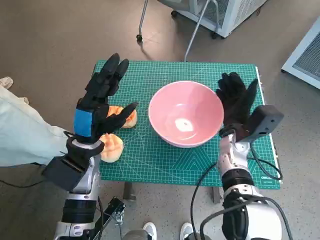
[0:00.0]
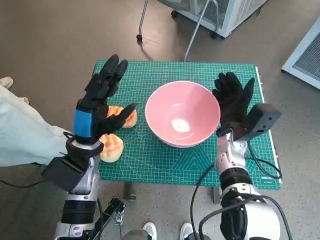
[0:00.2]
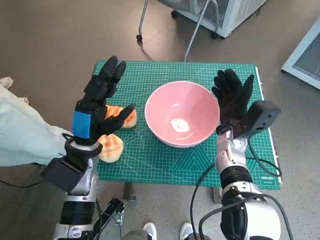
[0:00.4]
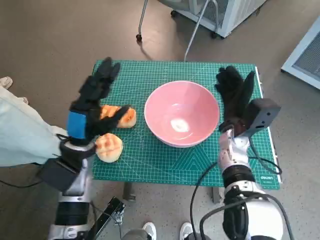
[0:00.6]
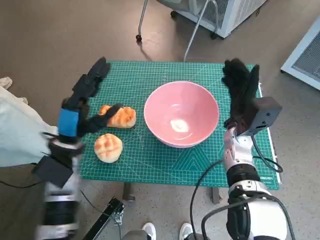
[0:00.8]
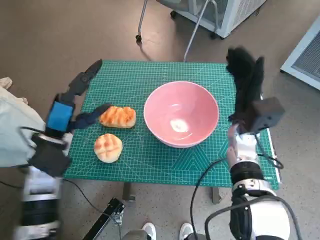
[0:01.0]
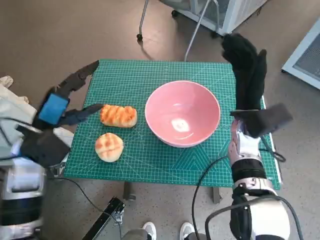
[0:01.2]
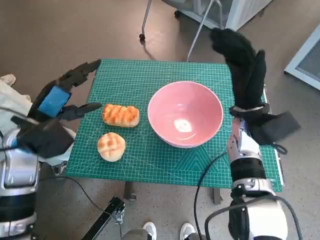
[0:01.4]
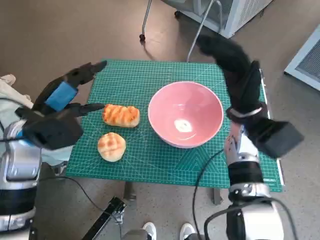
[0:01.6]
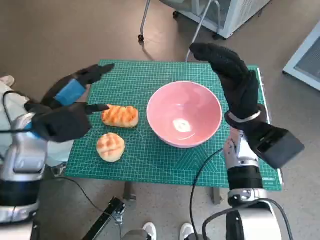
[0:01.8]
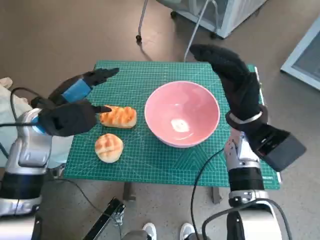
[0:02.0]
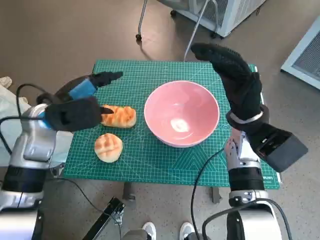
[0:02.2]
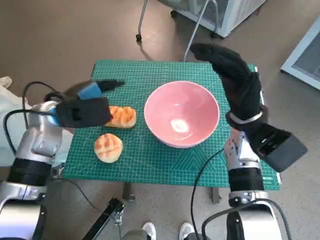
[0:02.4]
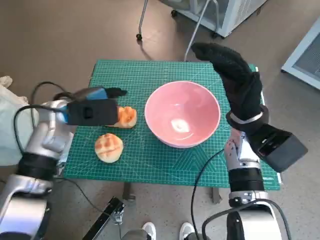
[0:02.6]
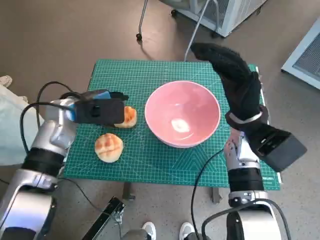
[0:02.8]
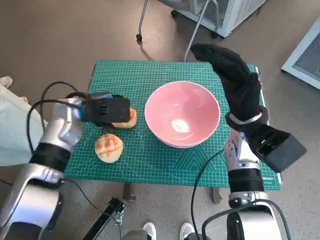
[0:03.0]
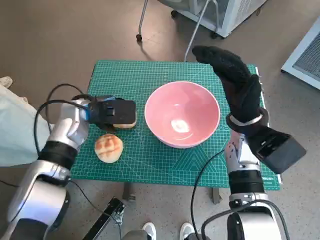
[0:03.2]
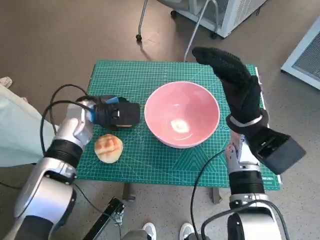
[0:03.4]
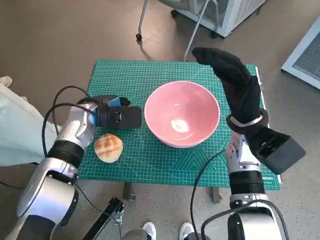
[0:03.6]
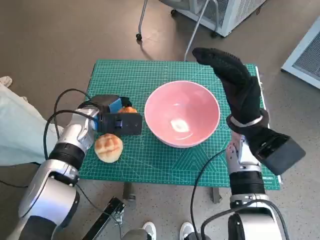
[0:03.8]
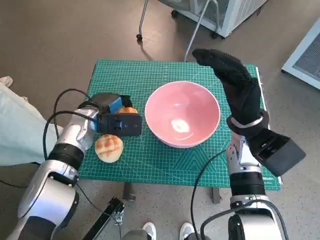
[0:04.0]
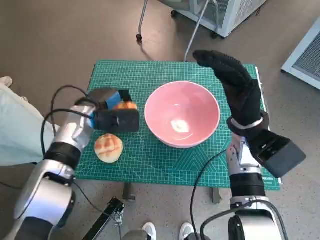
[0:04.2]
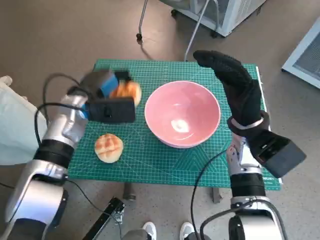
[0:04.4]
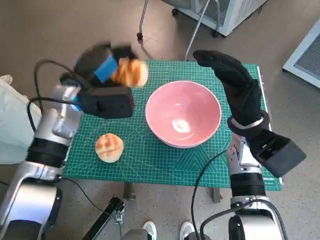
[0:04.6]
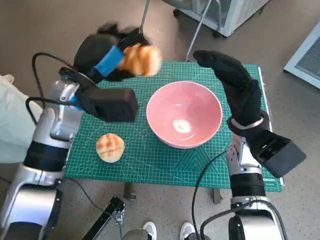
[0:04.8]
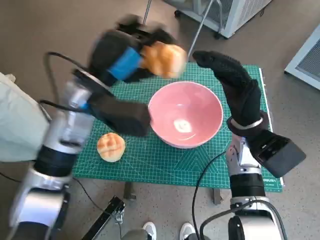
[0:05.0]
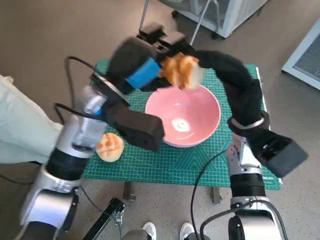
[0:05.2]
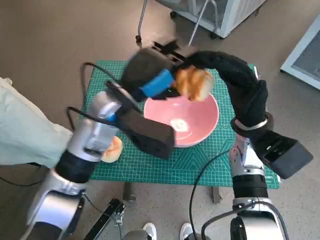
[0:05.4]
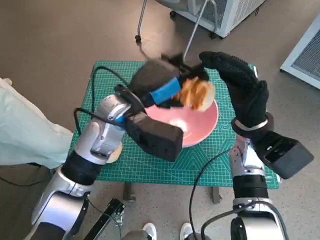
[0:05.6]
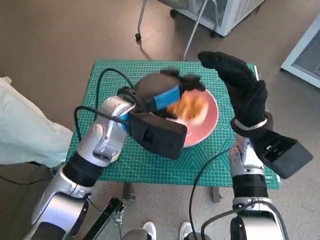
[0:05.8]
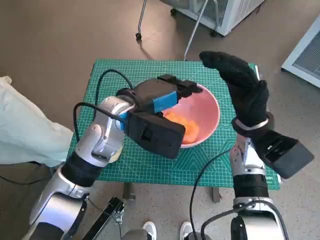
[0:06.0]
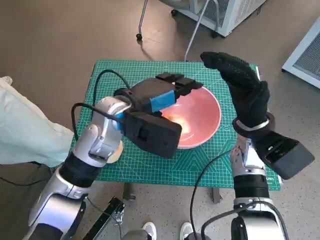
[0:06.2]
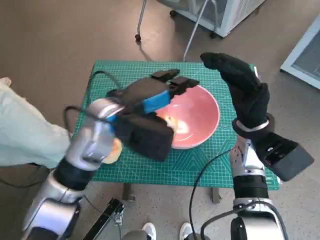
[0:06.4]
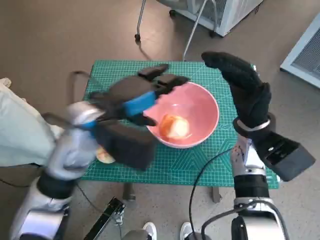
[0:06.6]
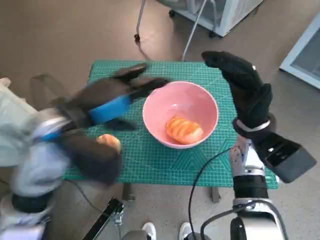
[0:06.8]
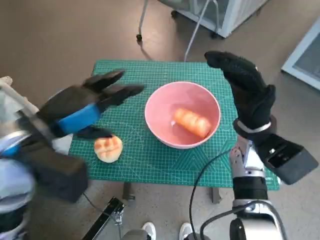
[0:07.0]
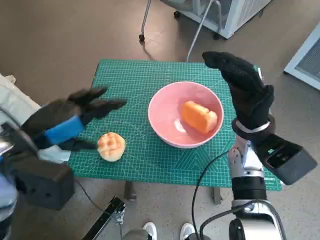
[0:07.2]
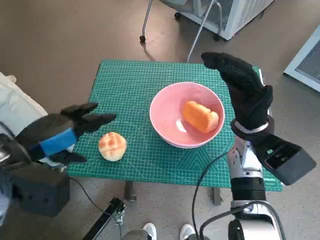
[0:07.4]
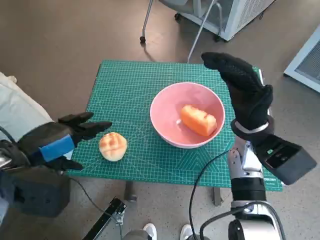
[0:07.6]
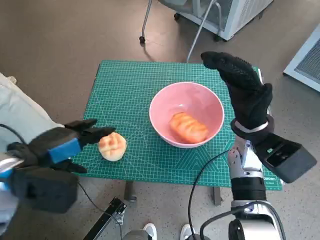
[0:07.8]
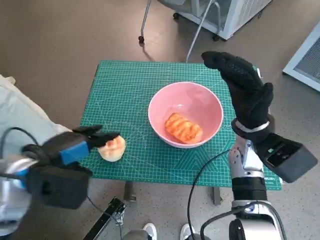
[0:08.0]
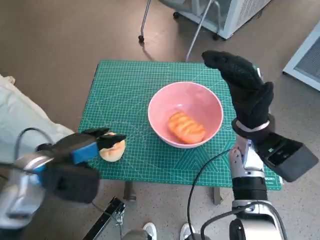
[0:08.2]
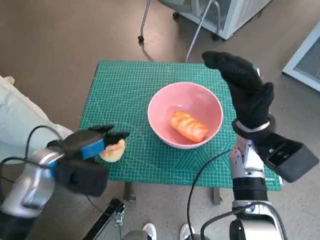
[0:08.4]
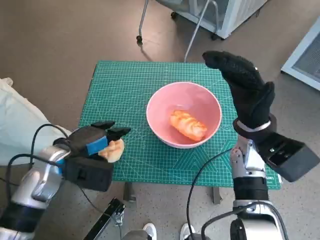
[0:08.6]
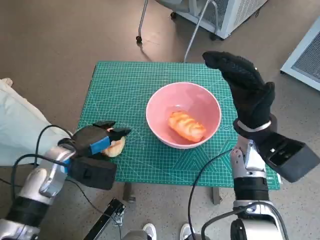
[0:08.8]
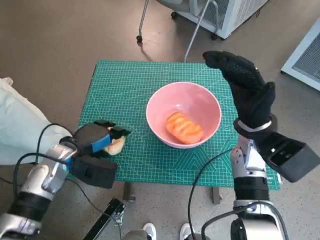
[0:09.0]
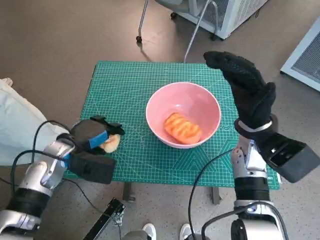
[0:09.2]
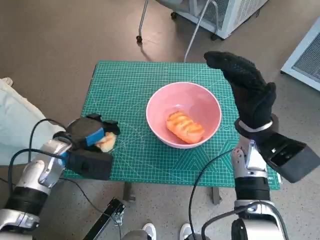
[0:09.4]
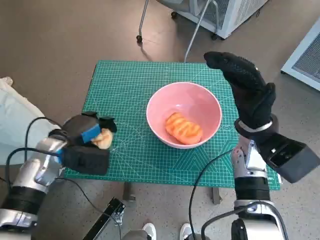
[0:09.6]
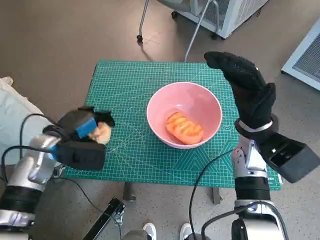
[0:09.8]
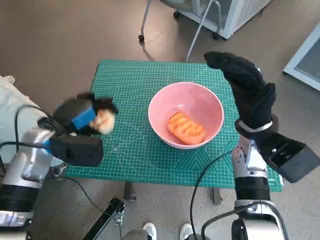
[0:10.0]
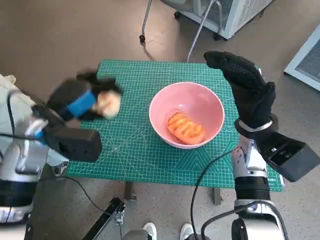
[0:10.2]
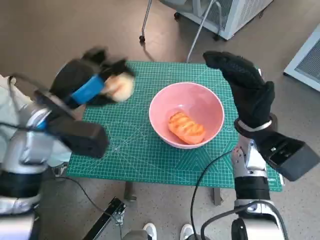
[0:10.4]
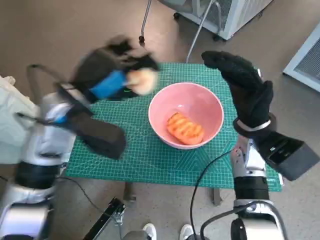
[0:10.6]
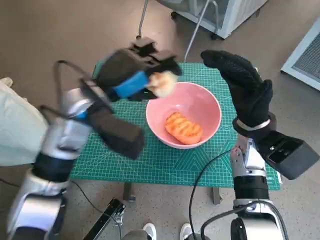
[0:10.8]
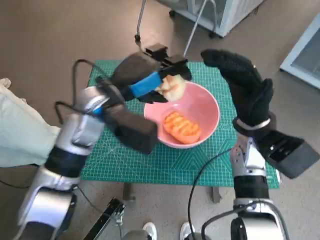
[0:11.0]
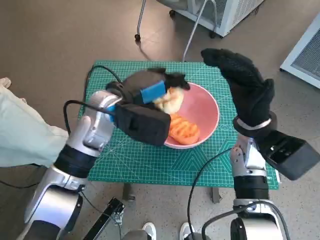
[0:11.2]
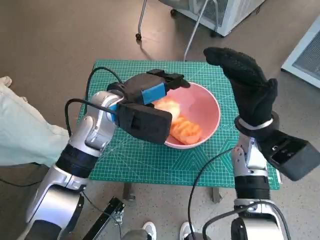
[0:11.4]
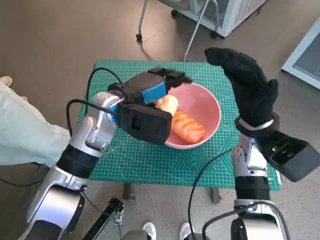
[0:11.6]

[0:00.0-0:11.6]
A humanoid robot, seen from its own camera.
Task of the whole recording: Push the bowl to the center of the table and put the bread into the bowl.
Step, 0:00.8 to 0:03.8: Grasp the long bread with left hand.
Step, 0:04.2 to 0:06.0: Place the long bread in pink bowl with left hand.
Step, 0:06.4 to 0:09.0: Grasp the round bread with left hand.
Step, 0:09.2 to 0:11.6: Place the round bread in pink bowl with left hand.
0:00.0 to 0:01.4: The right hand shifts approximately 10 cm upward; the left hand shifts approximately 10 cm to the left and upward.
0:01.4 to 0:02.8: The left hand travels forward by about 10 cm.
0:04.4 to 0:05.8: The left hand travels to the right by some 10 cm.
0:05.8 to 0:07.2: The left hand is displaced to the left and backward by some 15 cm.
0:07.2 to 0:08.8: The left hand shifts approximately 15 cm downward.
0:08.8 to 0:10.2: The left hand shifts some 10 cm upward.
0:10.2 to 0:11.6: The left hand is displaced to the right by roughly 10 cm.

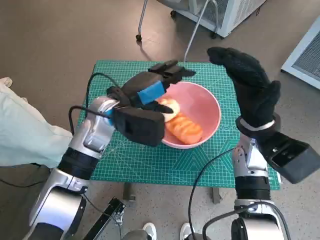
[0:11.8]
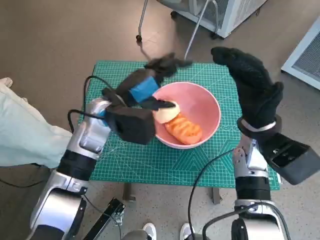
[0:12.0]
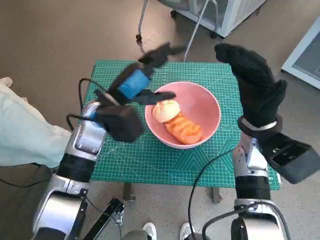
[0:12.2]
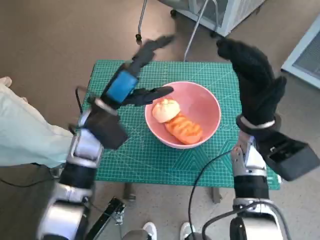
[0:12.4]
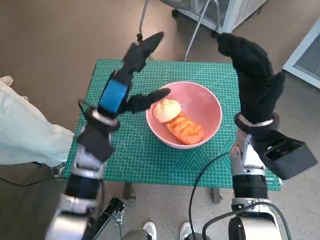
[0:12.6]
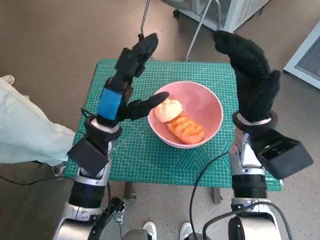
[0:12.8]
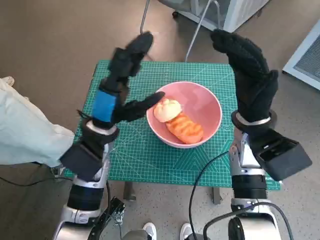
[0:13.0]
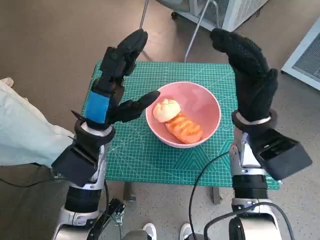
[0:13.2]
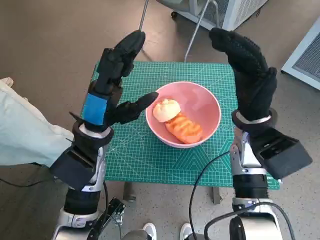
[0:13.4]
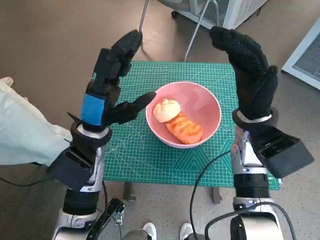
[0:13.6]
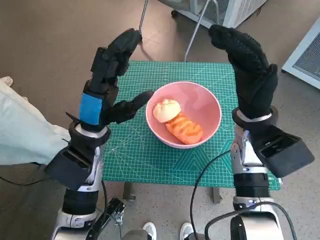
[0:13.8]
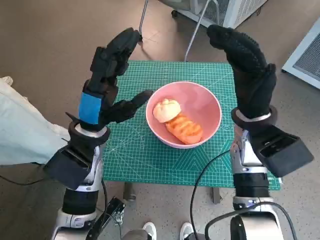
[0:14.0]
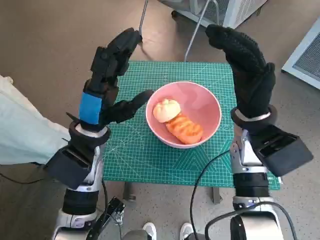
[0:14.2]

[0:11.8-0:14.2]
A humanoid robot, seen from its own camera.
Task of the whole recording: Push the bowl to the center of the table and put the bread into the bowl.
0:11.8 to 0:13.0: The left hand ends up roughly 5 cm from where it was.
0:13.0 to 0:14.2: The hands make only small movements.
